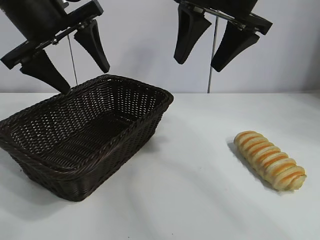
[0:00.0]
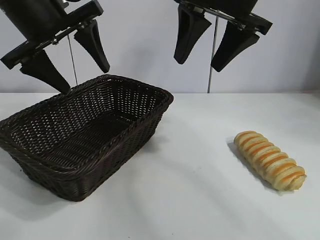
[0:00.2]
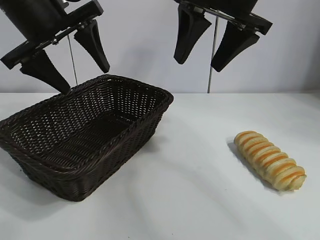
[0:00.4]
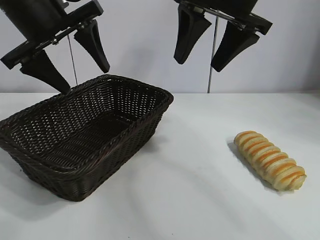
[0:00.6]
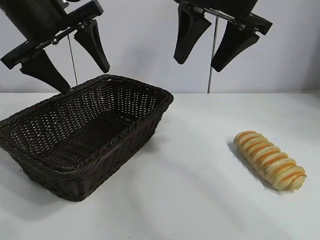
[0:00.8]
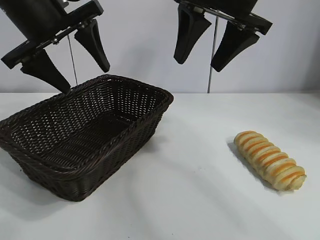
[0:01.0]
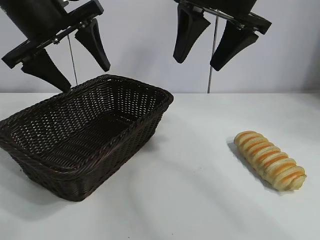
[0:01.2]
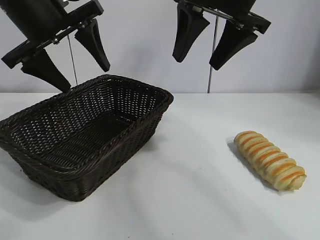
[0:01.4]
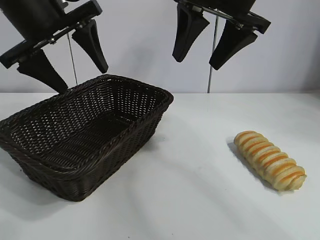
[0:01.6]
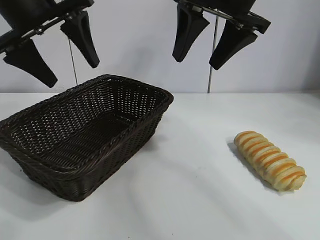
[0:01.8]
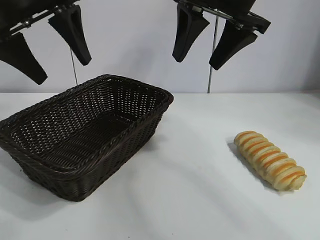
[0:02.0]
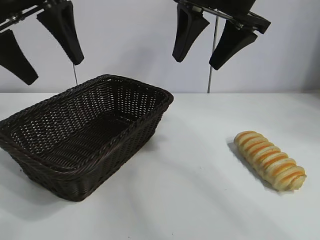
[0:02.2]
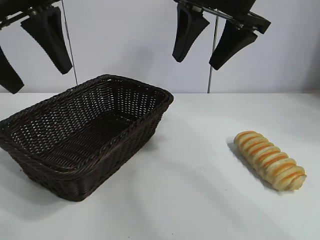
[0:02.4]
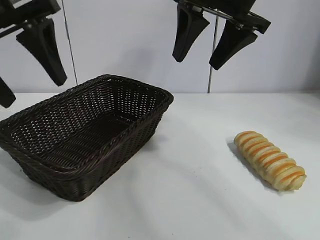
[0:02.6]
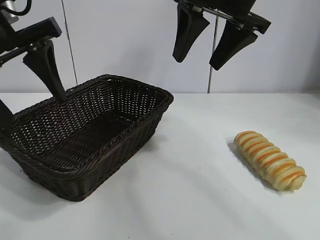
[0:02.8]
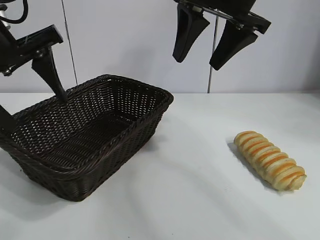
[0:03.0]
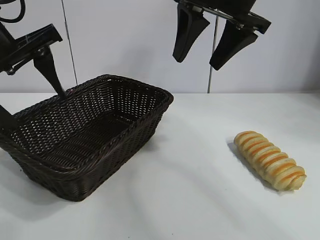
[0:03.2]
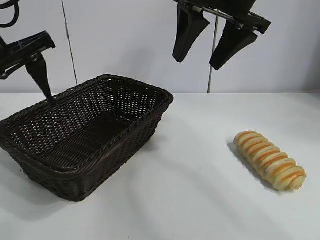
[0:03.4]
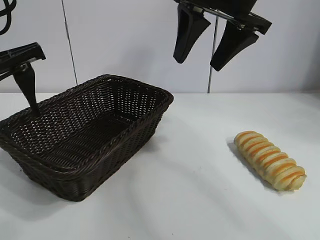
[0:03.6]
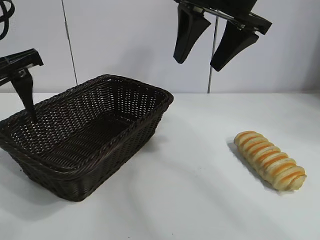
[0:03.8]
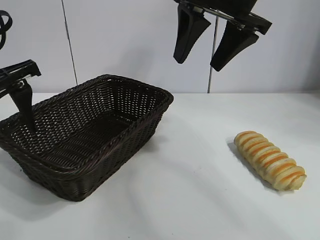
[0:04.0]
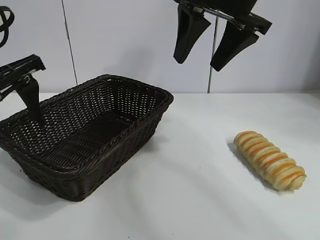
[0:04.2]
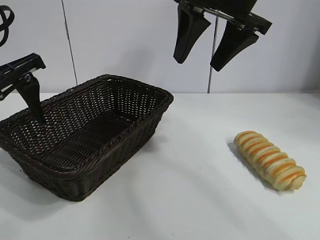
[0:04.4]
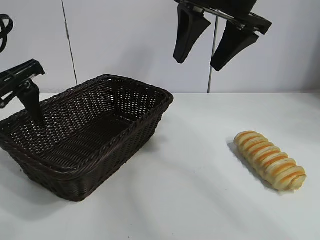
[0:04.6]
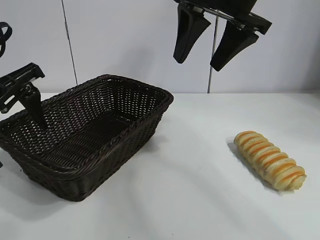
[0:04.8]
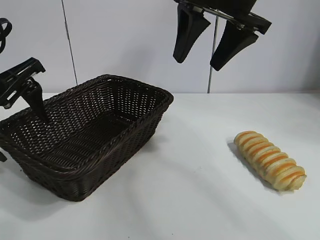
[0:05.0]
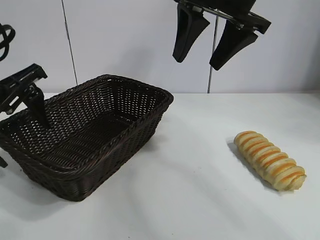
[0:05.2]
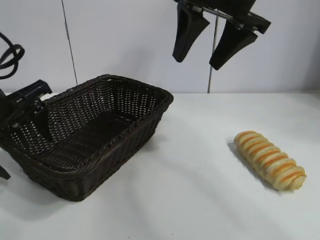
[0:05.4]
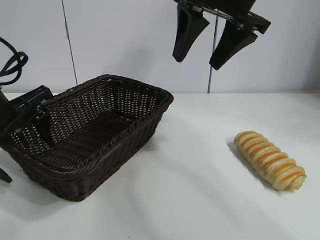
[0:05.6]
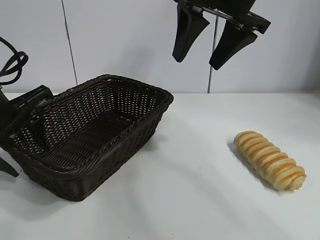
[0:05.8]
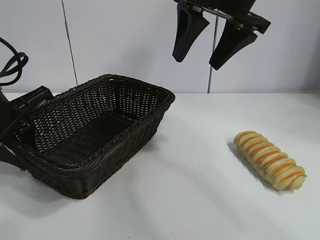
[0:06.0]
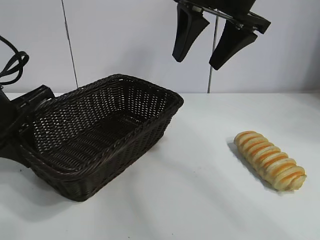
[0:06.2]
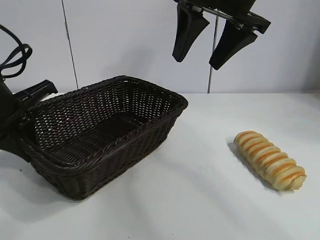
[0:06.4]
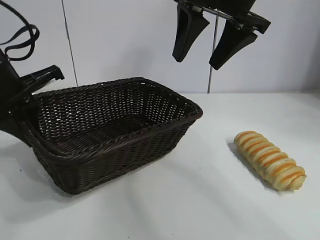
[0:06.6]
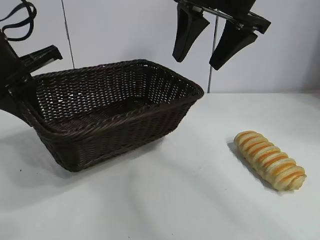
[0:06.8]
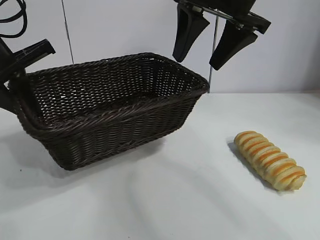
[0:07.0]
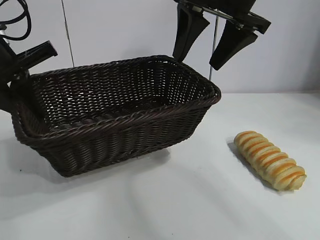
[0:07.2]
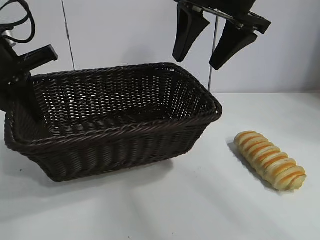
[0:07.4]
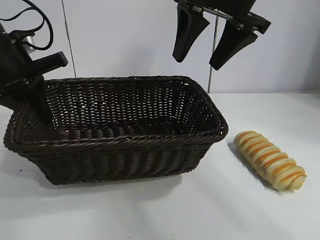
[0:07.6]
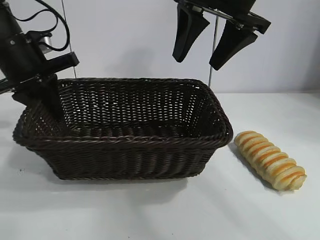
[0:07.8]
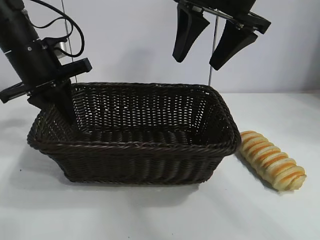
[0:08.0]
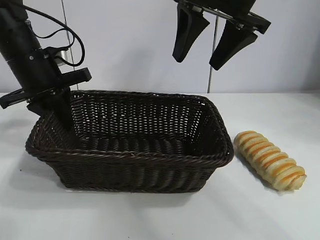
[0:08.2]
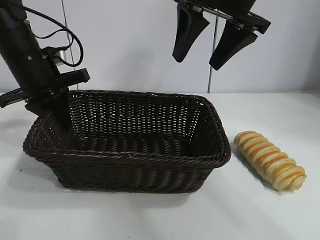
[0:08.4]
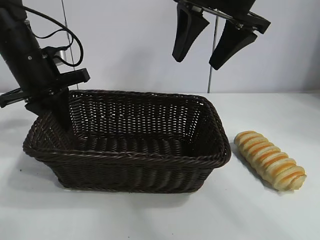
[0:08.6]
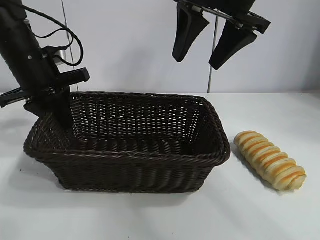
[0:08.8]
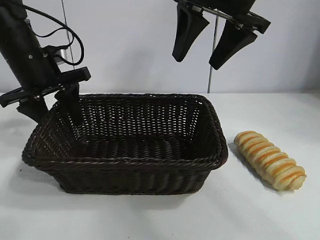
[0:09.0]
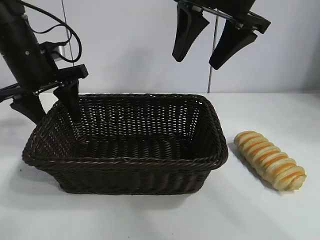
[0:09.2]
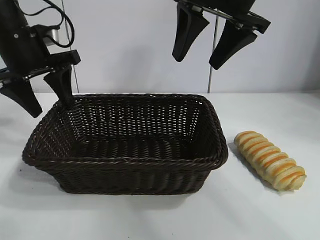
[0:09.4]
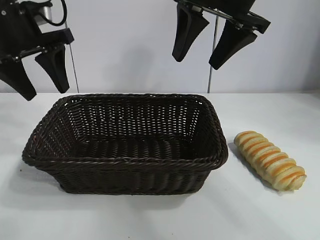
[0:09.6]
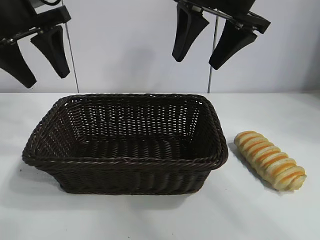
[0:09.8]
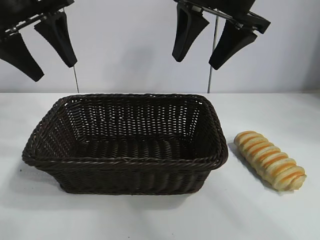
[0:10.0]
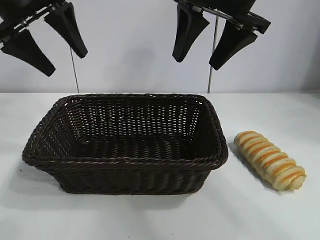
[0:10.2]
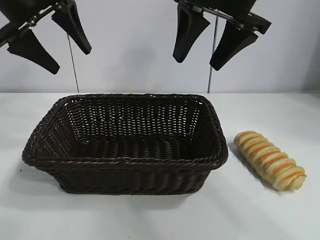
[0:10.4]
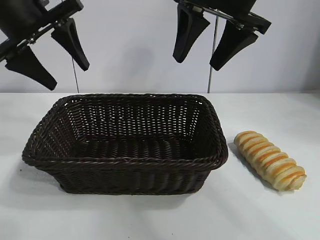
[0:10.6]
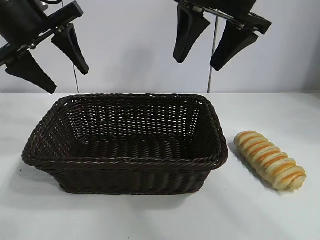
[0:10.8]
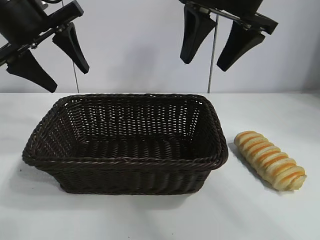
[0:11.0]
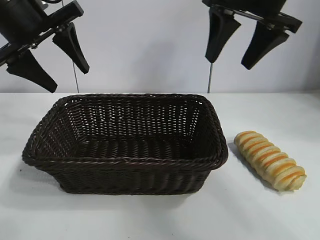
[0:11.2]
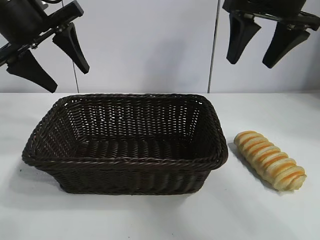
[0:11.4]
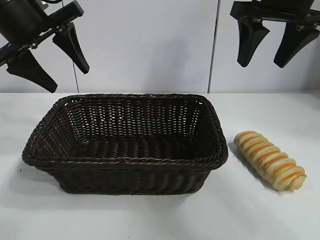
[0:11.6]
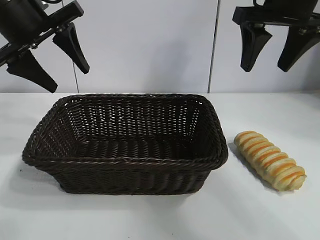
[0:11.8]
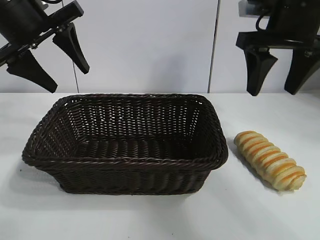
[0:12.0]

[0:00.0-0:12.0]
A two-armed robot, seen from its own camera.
Task of the whole recording: pick up the long bread and put it into the basket.
Step, 0:01.4 to 0:06.2: Grasp the basket with the left gripper.
Step, 0:06.4 to 0:09.0: Place the basket in the center of the table with the left gripper.

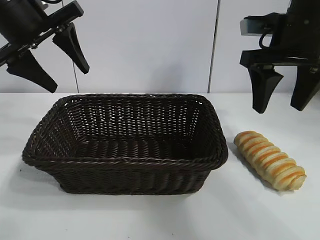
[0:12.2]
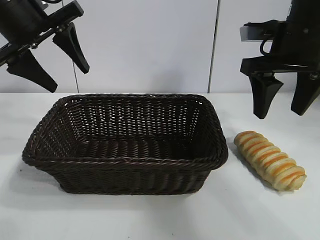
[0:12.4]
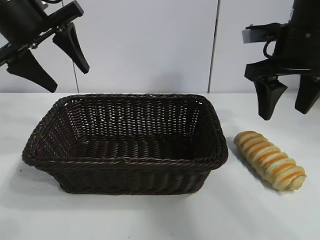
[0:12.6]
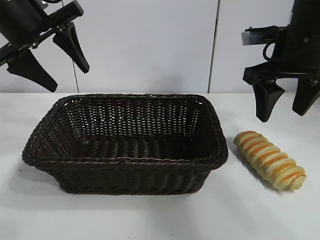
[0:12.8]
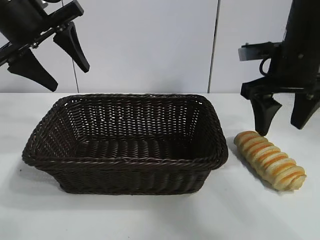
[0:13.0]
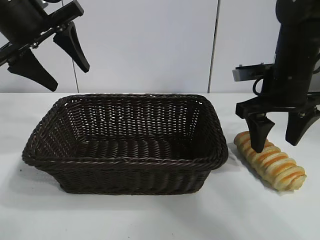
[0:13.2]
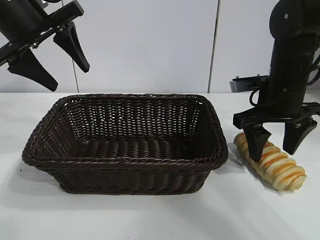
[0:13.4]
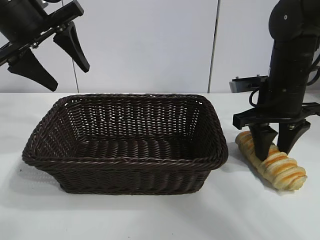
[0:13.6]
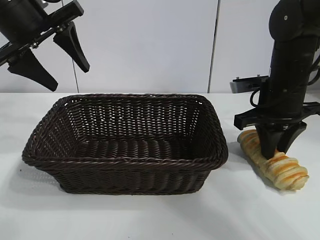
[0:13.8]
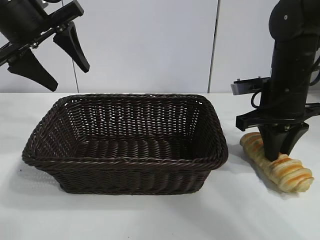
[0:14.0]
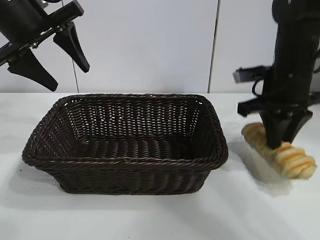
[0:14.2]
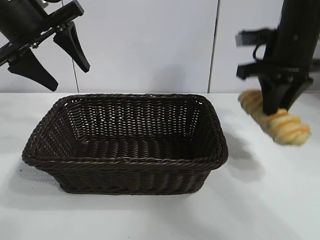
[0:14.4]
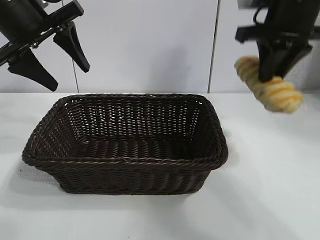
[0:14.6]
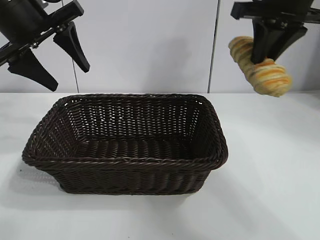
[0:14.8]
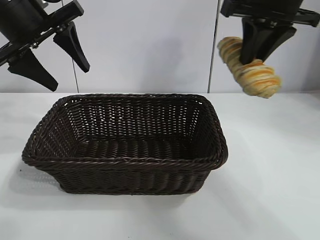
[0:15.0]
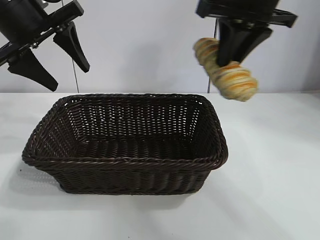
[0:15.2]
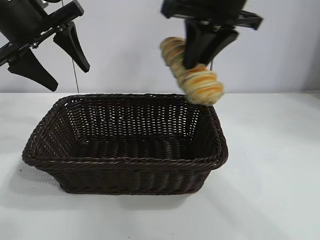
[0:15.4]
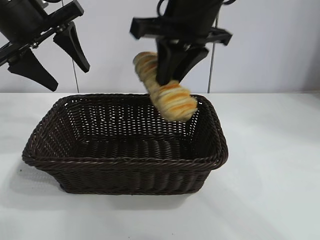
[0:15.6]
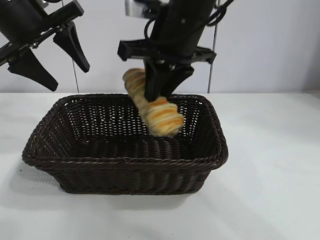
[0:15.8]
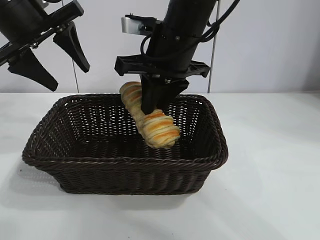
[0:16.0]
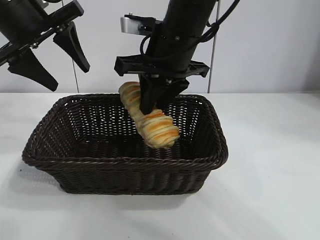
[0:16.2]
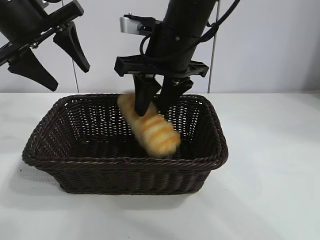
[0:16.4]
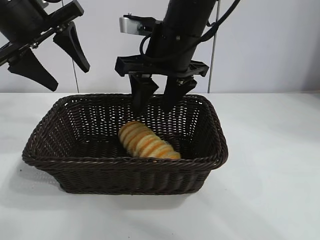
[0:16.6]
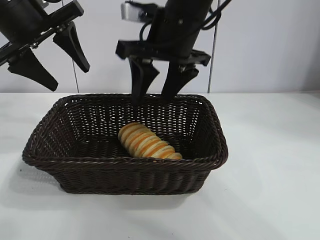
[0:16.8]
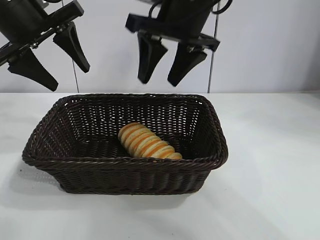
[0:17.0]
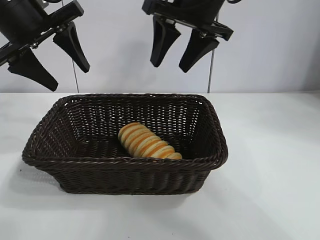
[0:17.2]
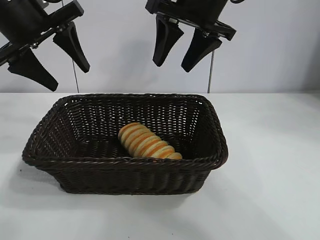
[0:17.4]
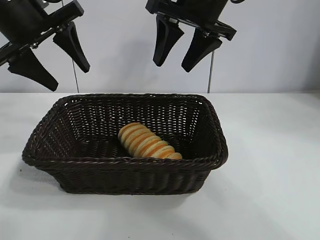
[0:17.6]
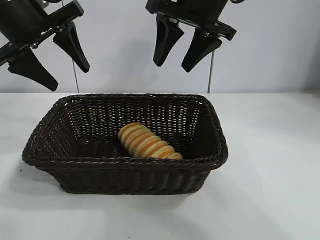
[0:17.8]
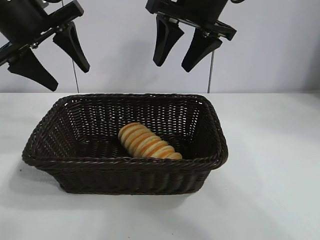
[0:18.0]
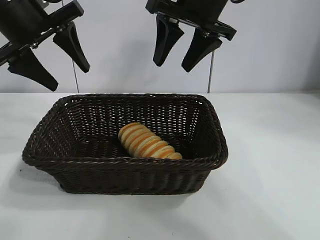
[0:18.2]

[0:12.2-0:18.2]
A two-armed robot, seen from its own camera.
Task of the whole recording: pick up the long bread and put it into the basket.
Step, 0:14.0 to 0:16.6: Place the long bread in the basket with right gripper.

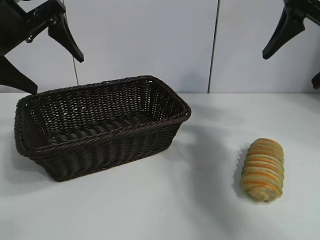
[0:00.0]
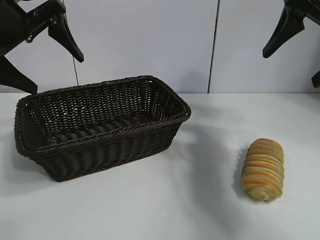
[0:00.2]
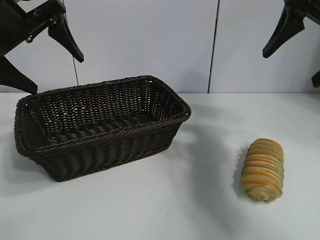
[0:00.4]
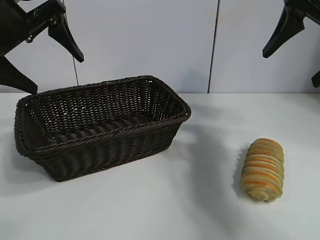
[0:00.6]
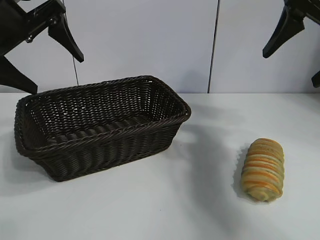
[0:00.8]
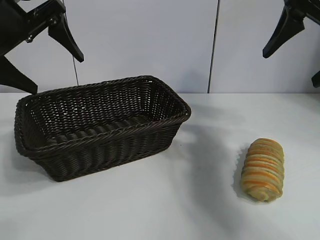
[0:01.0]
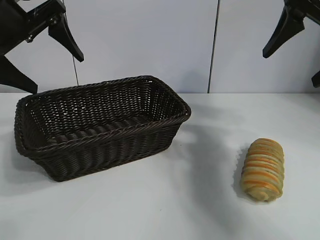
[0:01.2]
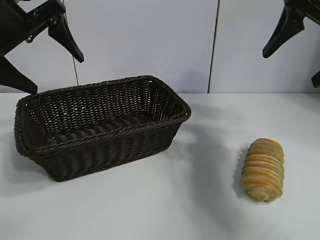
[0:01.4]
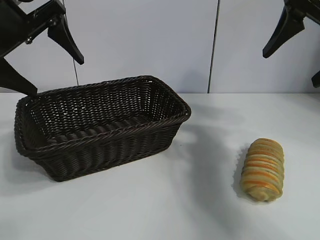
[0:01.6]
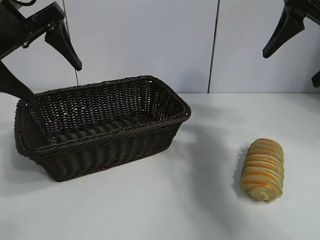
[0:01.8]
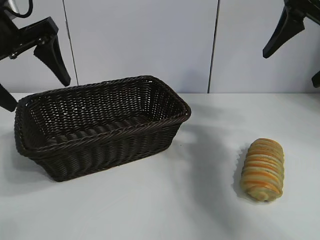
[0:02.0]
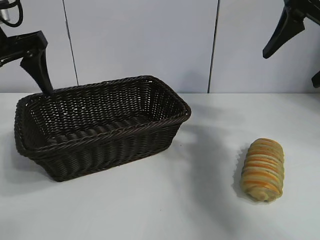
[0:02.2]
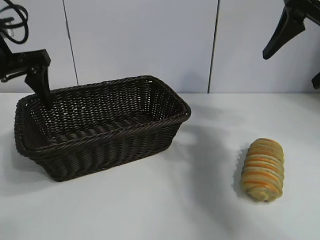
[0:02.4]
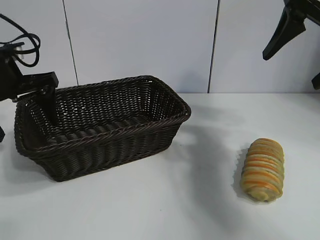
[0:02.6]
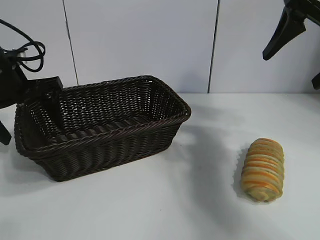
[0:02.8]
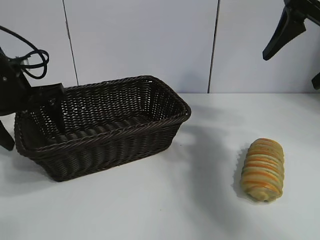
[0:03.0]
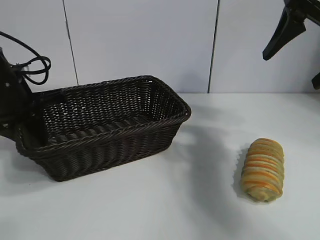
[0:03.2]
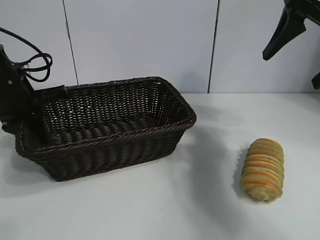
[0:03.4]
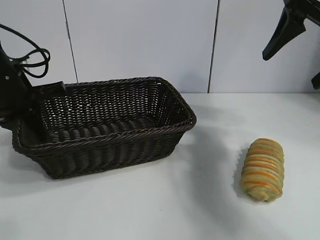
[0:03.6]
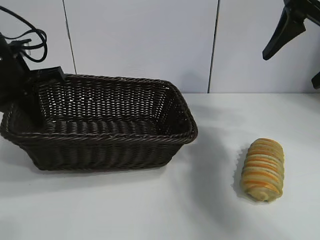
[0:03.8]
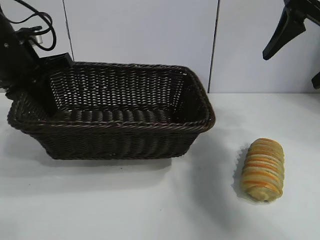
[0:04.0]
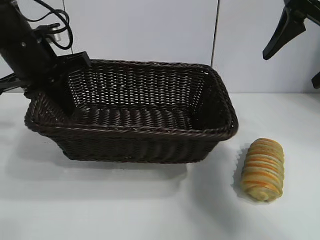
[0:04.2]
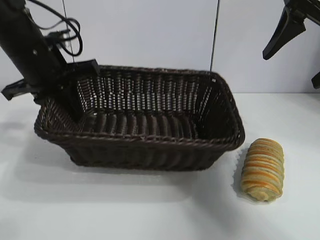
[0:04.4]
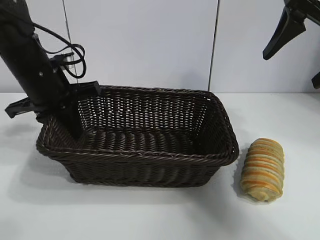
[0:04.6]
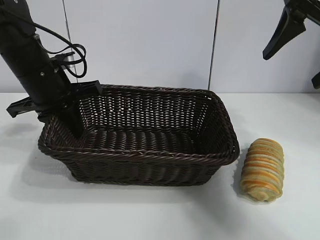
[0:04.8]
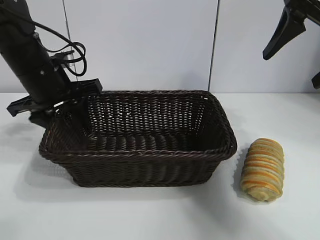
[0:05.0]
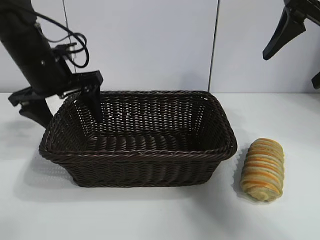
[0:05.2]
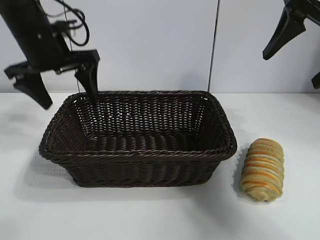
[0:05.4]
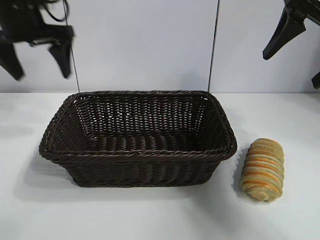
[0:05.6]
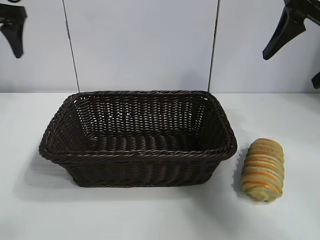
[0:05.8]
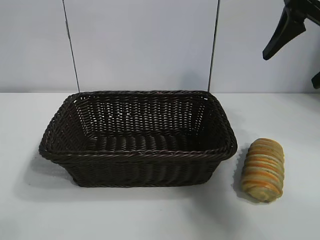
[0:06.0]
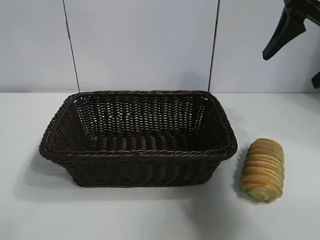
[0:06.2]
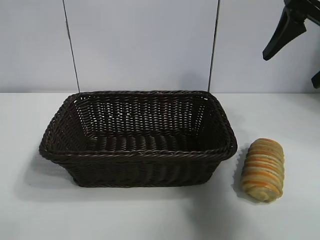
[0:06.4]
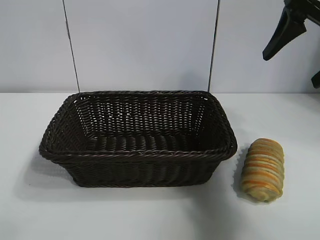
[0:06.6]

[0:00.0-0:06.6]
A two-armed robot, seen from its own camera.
Task of the whole recording: pick up the long bread and put it into the basket.
Step, 0:01.4 to 0:03.2: Grasp the basket with the left gripper.
Step, 0:03.4 to 0:05.0: Place the basket in the center of the table with the left gripper.
